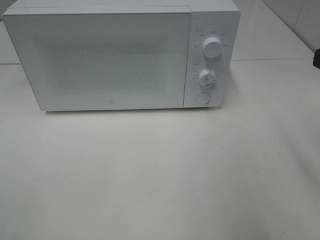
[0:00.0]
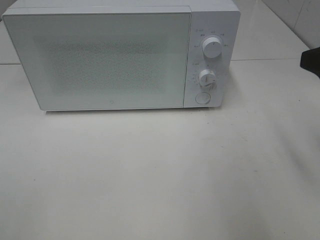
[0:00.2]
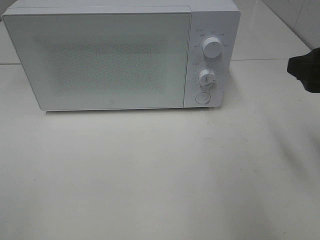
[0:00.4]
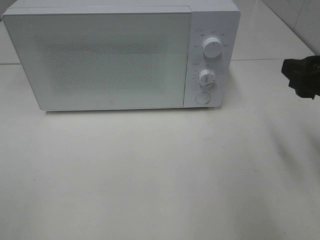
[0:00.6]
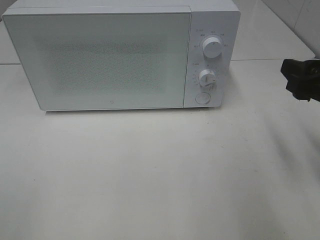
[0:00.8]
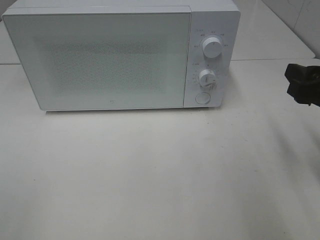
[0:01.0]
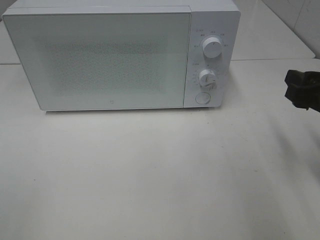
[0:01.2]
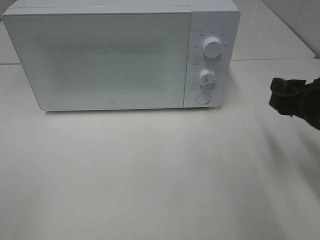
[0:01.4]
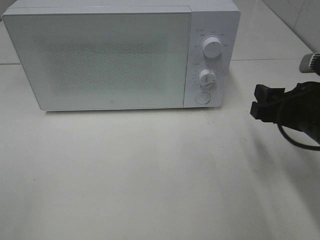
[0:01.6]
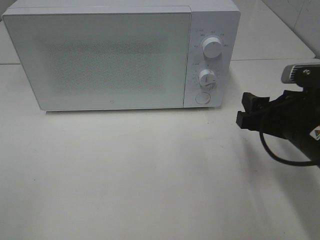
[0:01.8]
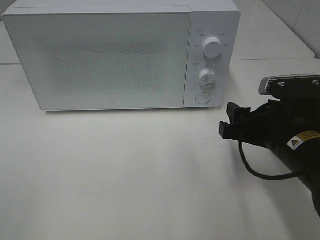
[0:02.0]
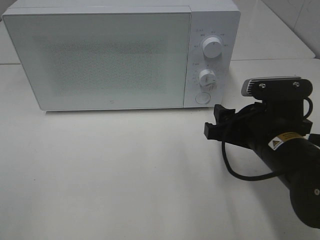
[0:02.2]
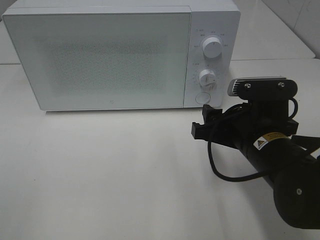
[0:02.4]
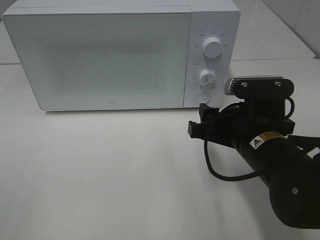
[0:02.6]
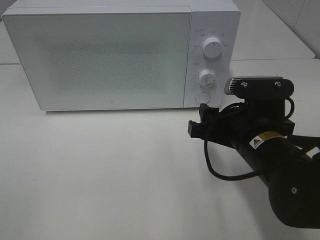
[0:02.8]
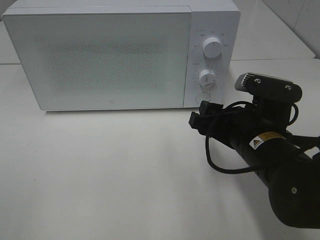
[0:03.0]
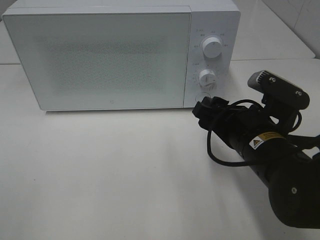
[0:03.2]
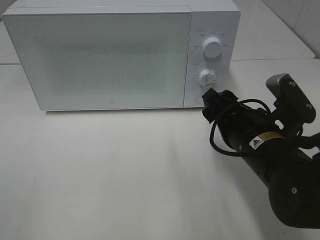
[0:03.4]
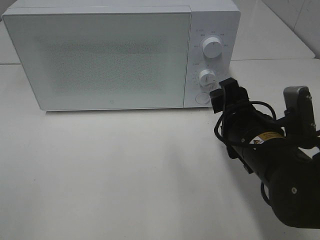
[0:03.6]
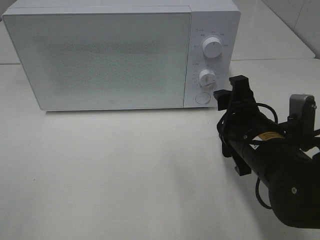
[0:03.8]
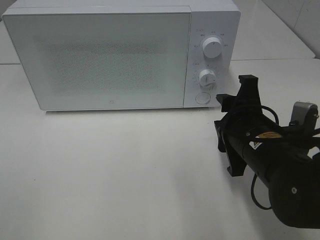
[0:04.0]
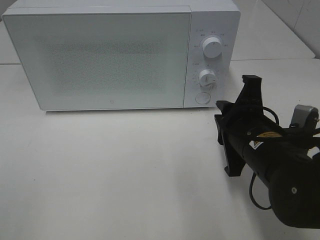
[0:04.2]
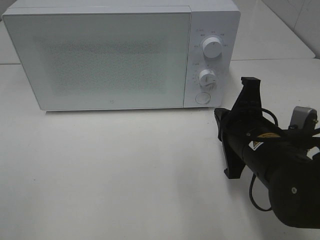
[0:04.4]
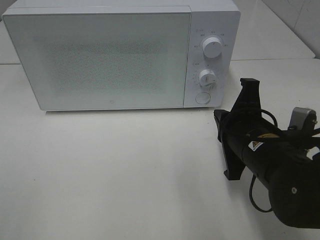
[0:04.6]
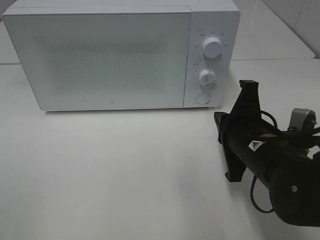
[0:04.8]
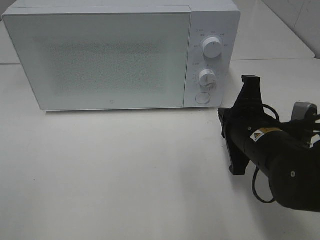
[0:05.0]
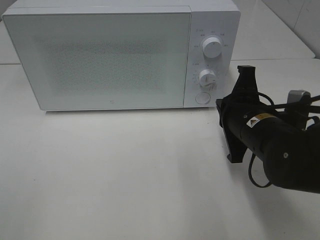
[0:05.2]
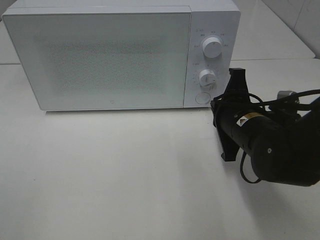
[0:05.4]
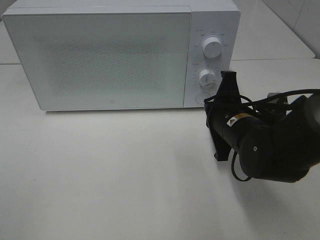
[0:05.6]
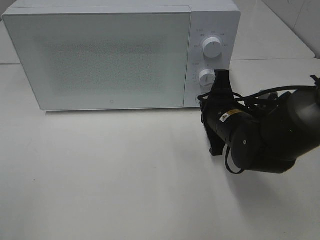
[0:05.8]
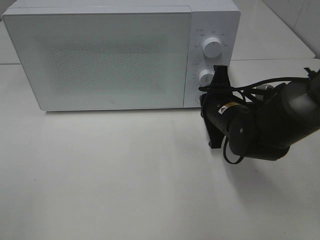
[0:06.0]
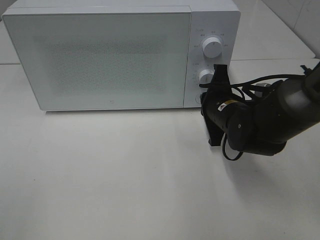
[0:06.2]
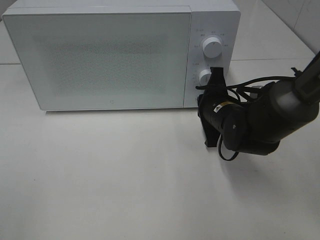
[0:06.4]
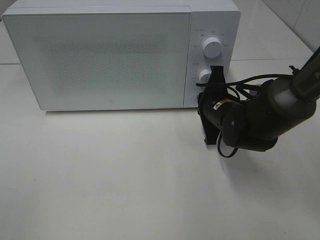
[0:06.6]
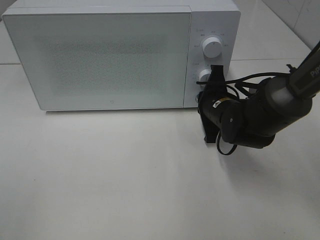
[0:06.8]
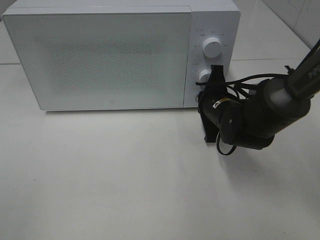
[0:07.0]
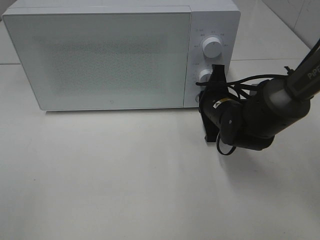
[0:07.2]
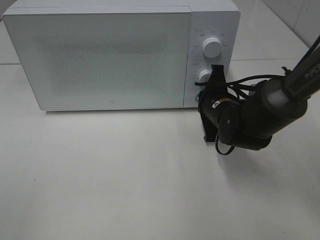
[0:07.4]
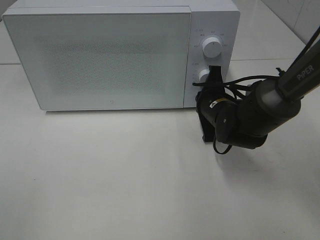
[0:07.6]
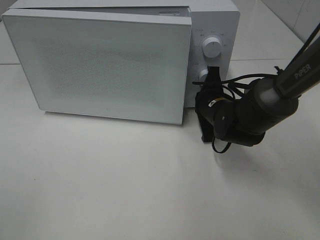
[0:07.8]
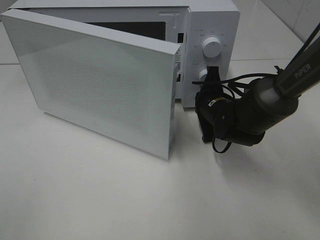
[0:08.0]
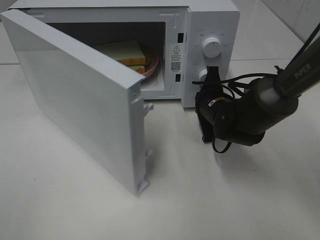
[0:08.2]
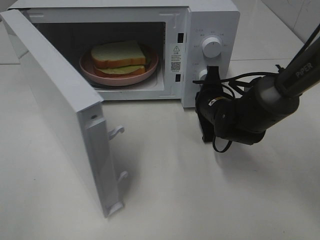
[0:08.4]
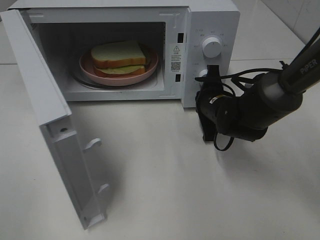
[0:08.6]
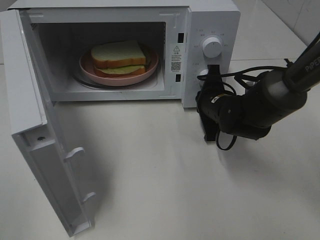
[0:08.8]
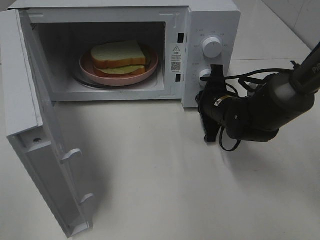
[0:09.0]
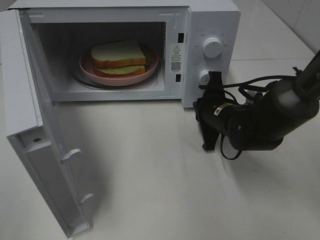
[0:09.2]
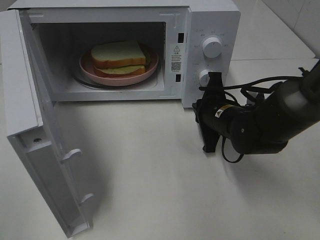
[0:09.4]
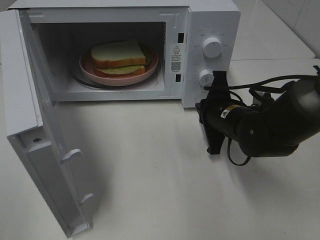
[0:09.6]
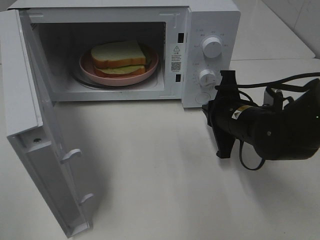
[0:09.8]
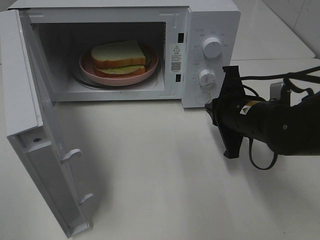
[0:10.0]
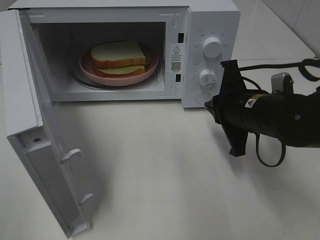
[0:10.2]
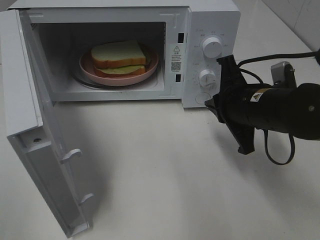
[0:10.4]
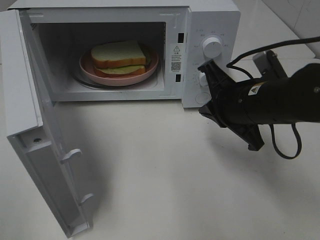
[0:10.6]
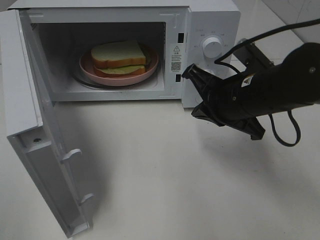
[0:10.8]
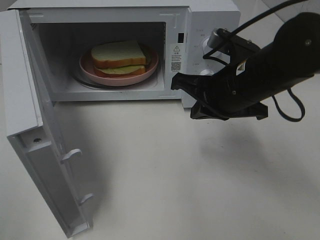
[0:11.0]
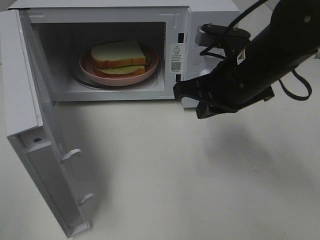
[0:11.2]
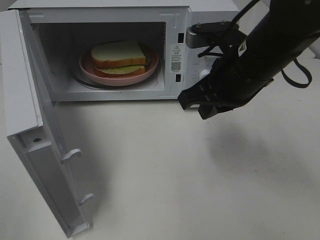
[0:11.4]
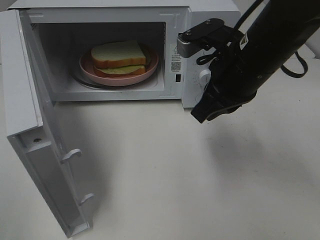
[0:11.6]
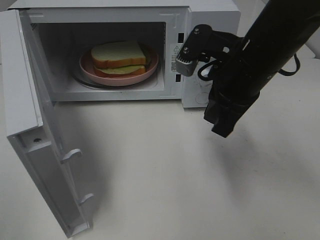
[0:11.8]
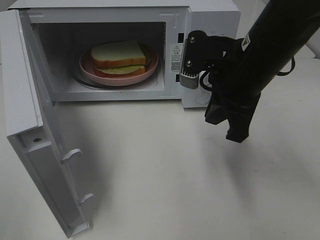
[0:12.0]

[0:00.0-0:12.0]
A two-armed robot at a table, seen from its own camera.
Task of the whole recording: Heat Sandwich.
Step, 0:00.0 to 0:09.2: Right hand: press the switch.
0:00.0 to 0:01.6: The right gripper shifts roughly 10 cm downward.
0:01.6 to 0:03.0: The right gripper heads to the left, covering some 10 cm.
0:03.0 to 0:04.4: The right gripper closes.
0:04.4 to 0:06.0: The right gripper travels forward by about 10 cm.
0:06.0 to 0:07.6: The grippers stay close to where they were, moving slightly.
0:09.0 to 0:10.4: The right gripper heads backward and upward, covering some 10 cm.
0:10.4 to 0:12.0: The right gripper goes roughly 5 cm upward.

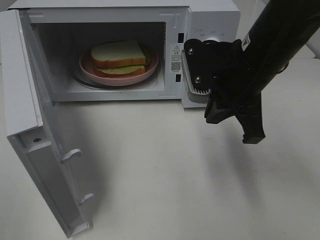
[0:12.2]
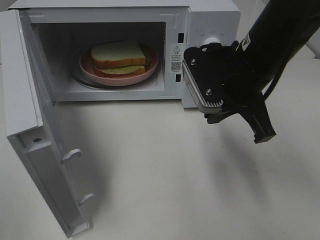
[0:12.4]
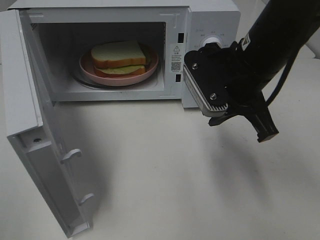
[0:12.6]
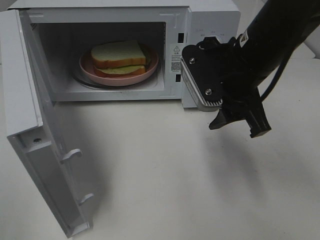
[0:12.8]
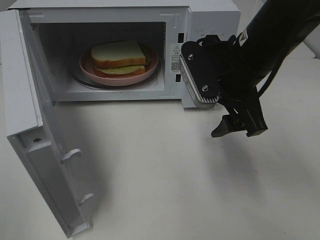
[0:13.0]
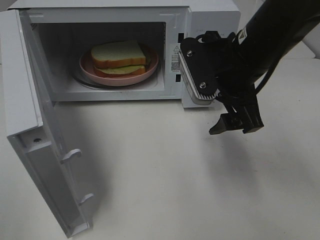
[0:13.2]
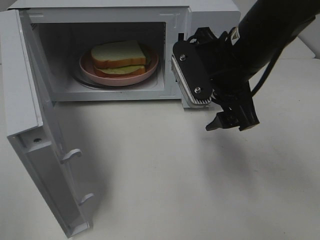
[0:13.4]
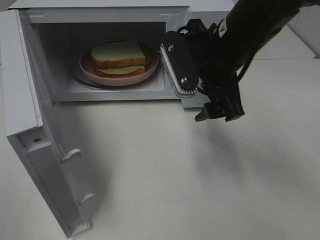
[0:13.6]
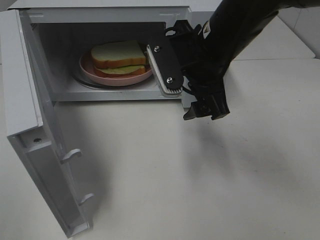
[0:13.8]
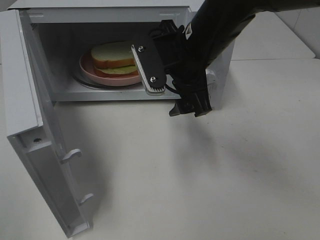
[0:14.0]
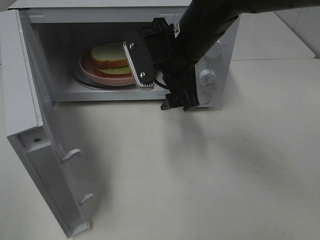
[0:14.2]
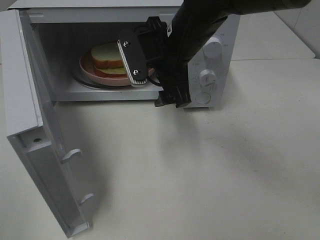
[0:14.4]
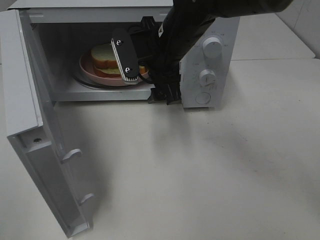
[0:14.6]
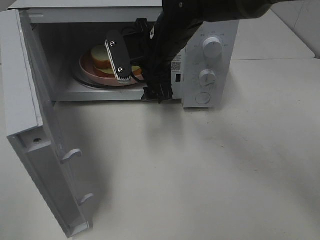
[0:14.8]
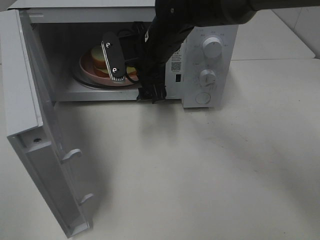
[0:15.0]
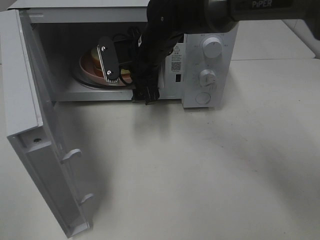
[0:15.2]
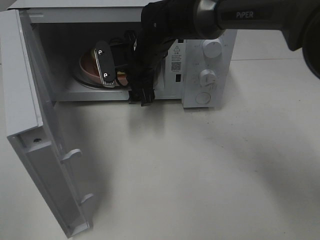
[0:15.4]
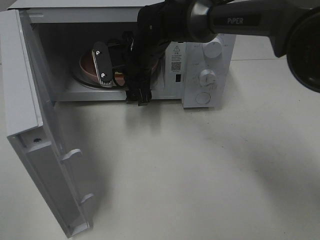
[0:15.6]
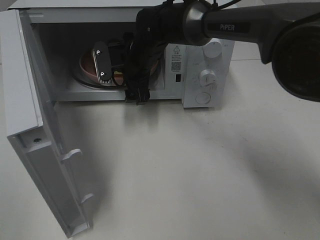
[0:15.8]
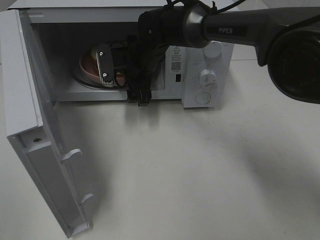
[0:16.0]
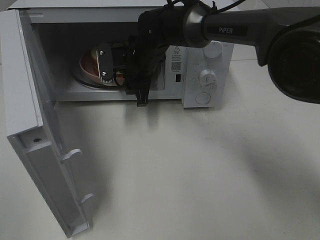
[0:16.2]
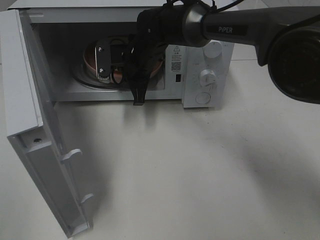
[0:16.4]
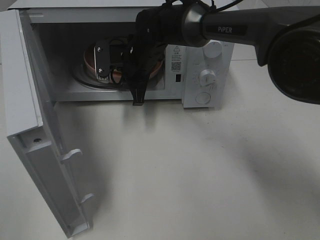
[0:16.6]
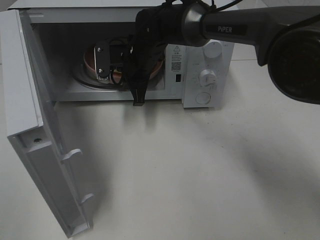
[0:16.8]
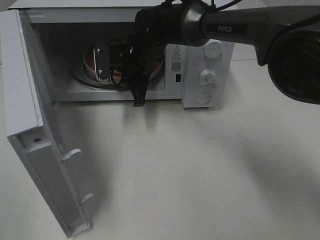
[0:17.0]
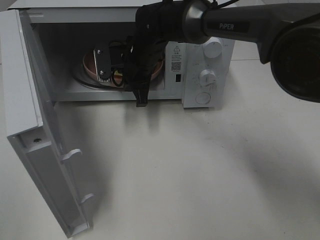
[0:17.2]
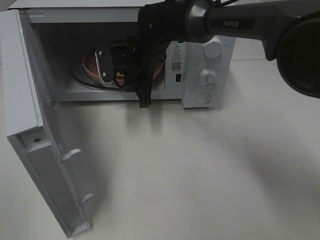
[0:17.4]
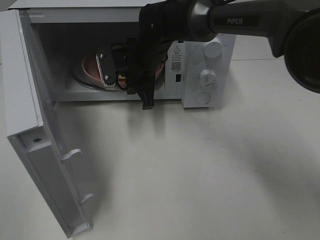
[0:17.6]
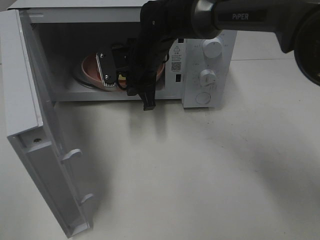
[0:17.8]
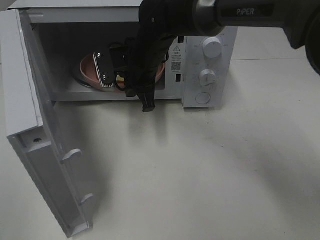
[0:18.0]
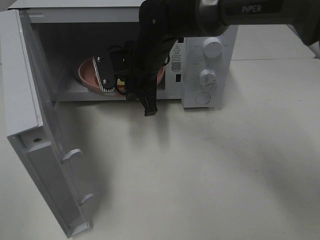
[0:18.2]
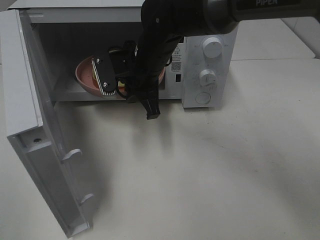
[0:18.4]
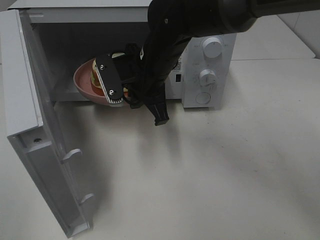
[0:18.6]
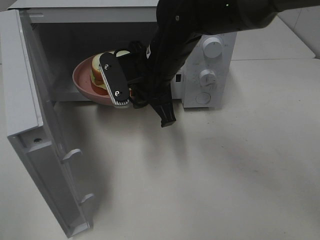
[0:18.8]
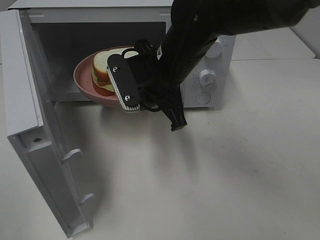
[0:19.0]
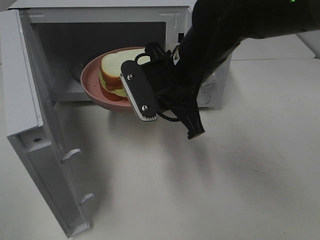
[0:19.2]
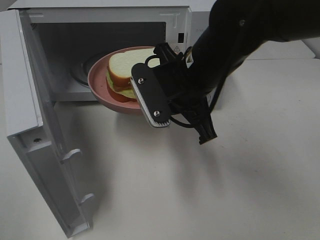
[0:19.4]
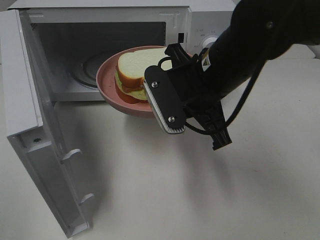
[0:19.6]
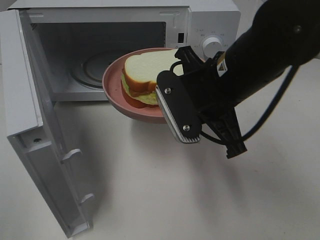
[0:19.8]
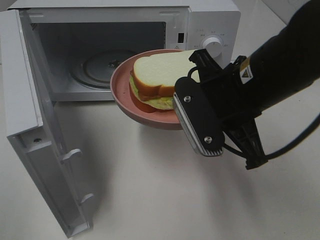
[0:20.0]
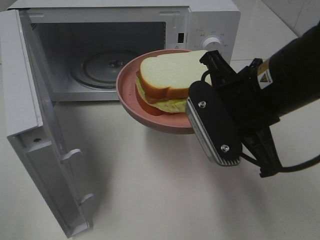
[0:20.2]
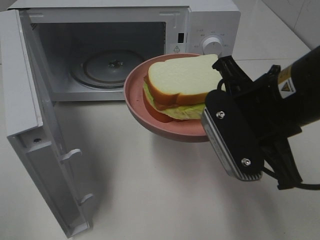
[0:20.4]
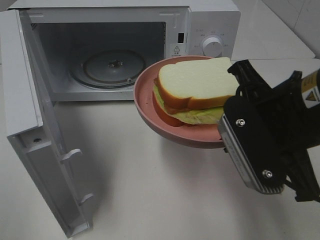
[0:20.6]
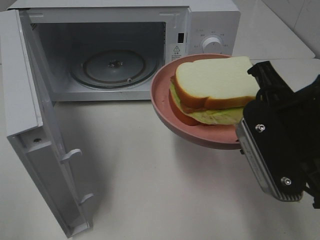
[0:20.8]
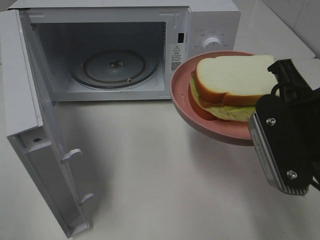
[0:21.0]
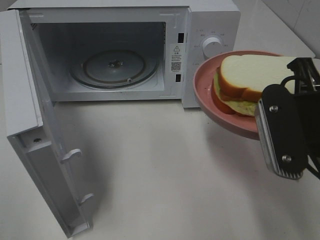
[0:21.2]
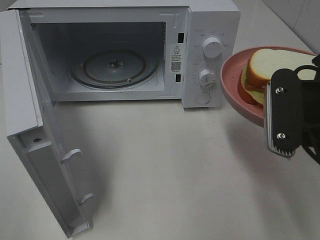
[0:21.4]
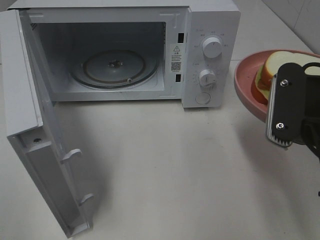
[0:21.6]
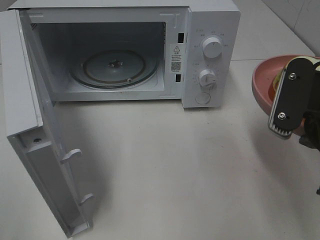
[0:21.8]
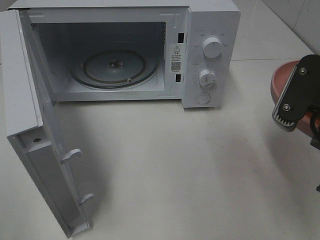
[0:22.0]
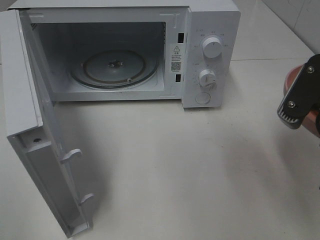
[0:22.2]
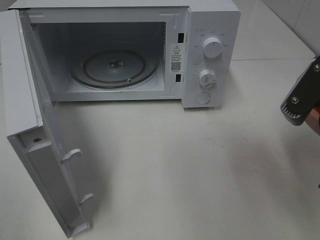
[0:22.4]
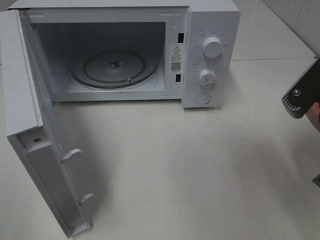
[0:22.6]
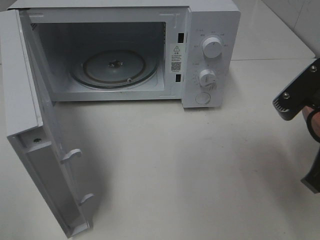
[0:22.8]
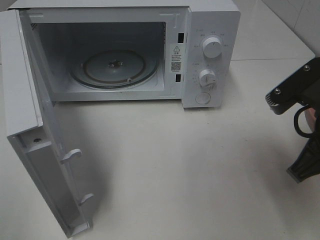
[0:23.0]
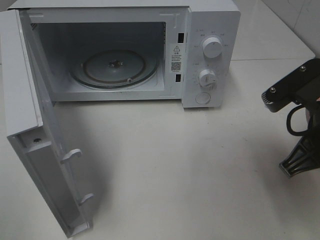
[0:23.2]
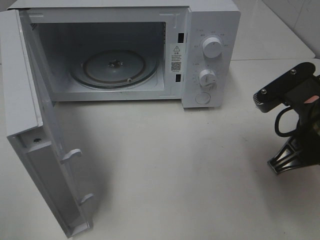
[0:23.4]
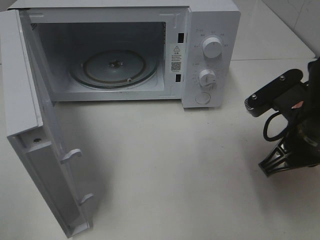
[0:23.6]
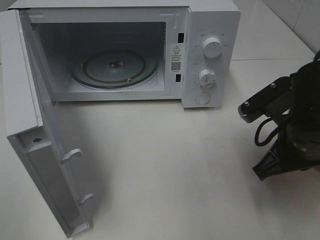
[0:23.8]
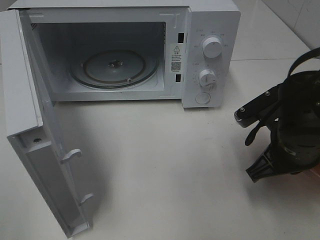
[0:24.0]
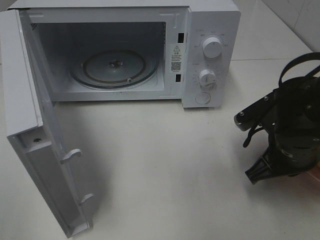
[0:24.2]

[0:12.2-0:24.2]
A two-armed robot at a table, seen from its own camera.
Task of the whole recording: Heat Sandwich.
Step, 0:12.2 to 0:16.4: Right hand: grab the plate with the sandwich.
0:12.2 to 0:13.8: The right gripper changes place by about 5 cm, and opens.
0:13.8 to 0:15.2: The right gripper moves forward, to the left and downward, approximately 15 cm.
0:15.2 to 0:16.6: The right gripper moves approximately 5 cm, and closes its fingers.
0:16.6 to 0:18.2: The right gripper travels backward by about 5 cm.
0:18.2 to 0:19.8: The right gripper moves backward and to the right, some 20 cm.
0:19.8 to 0:21.2: The right gripper heads to the right and backward, covering some 10 cm.
0:22.6 to 0:24.2: The right gripper travels downward and forward by some 15 cm.
